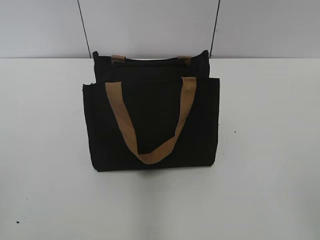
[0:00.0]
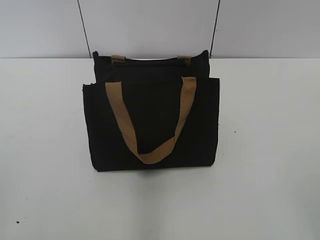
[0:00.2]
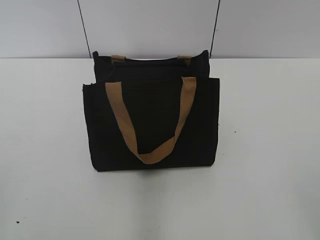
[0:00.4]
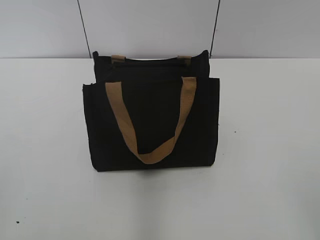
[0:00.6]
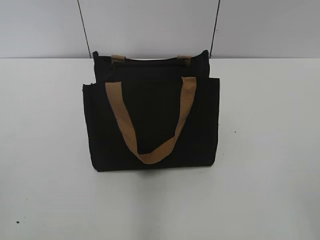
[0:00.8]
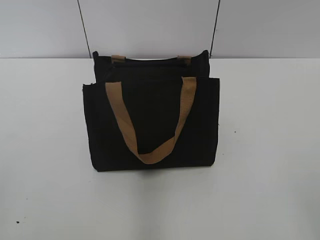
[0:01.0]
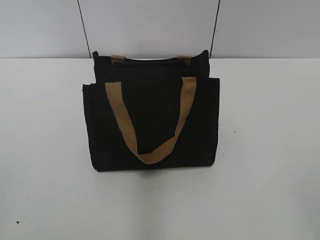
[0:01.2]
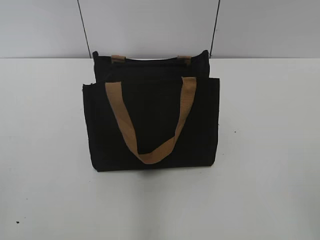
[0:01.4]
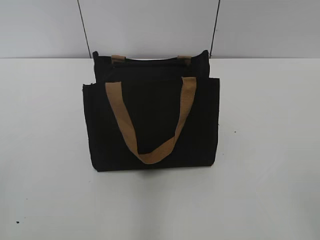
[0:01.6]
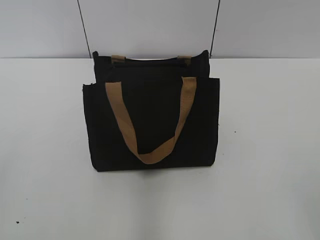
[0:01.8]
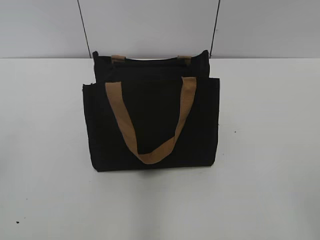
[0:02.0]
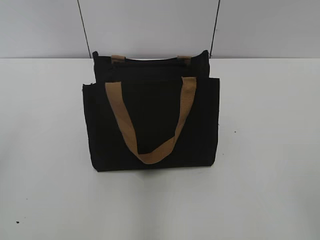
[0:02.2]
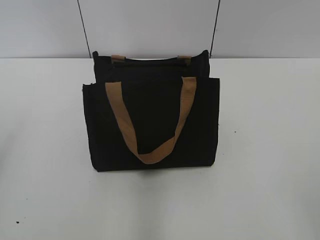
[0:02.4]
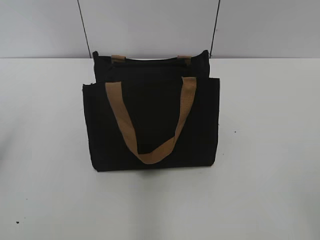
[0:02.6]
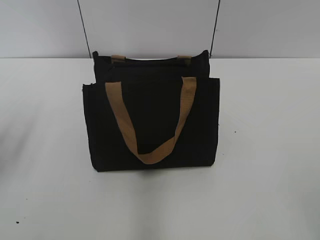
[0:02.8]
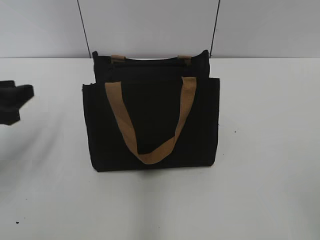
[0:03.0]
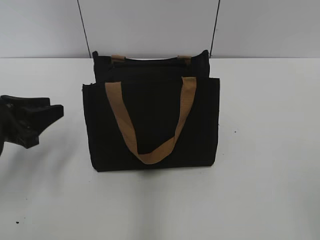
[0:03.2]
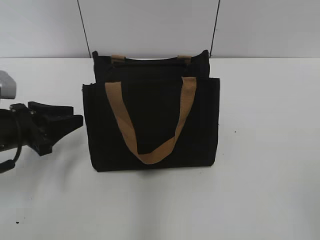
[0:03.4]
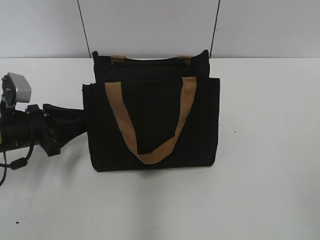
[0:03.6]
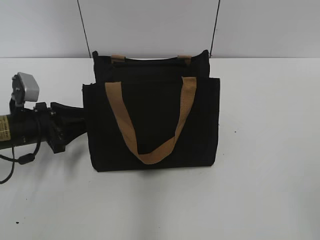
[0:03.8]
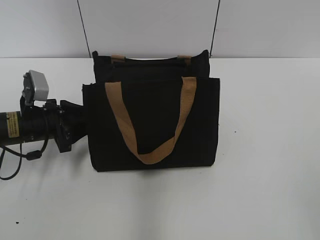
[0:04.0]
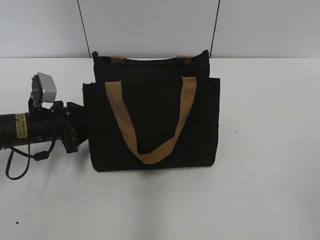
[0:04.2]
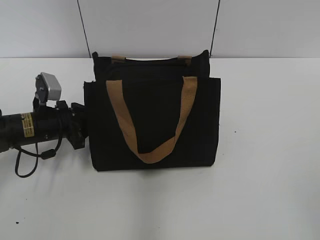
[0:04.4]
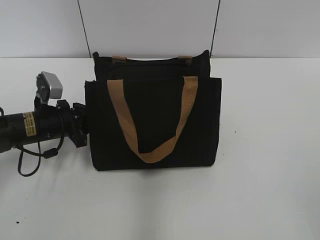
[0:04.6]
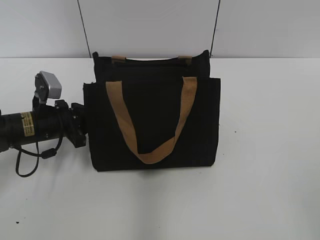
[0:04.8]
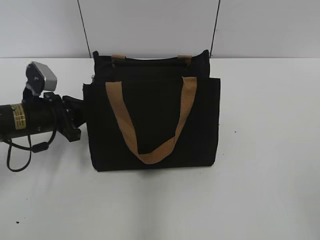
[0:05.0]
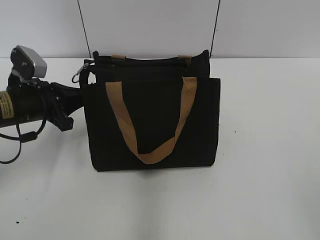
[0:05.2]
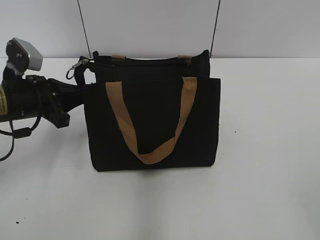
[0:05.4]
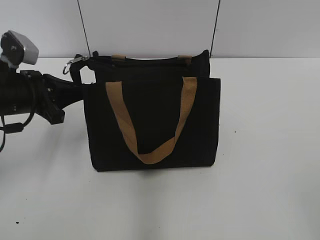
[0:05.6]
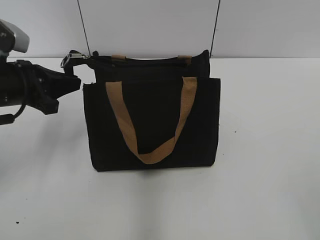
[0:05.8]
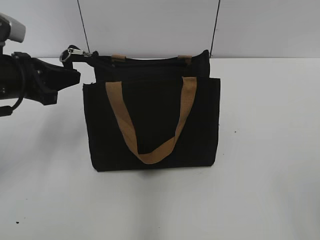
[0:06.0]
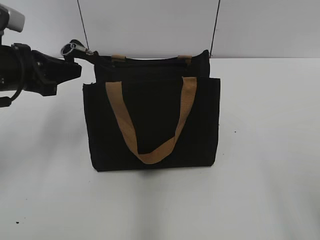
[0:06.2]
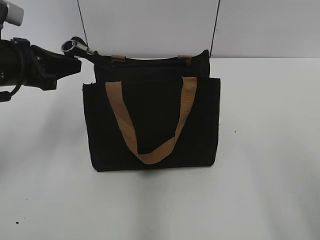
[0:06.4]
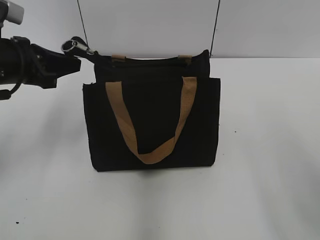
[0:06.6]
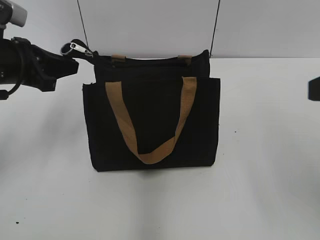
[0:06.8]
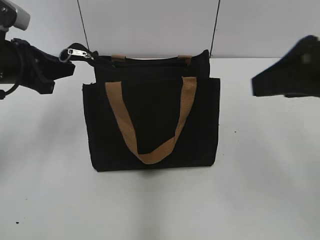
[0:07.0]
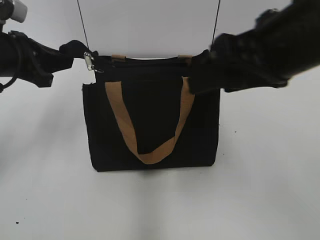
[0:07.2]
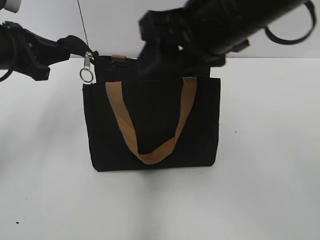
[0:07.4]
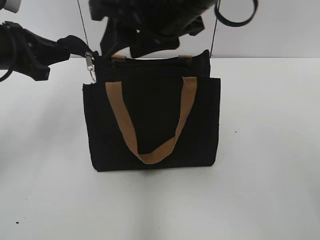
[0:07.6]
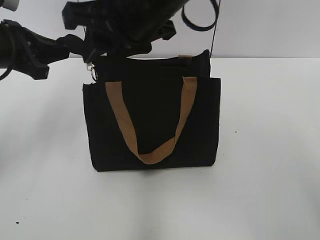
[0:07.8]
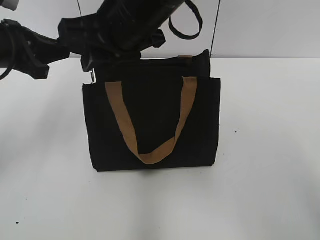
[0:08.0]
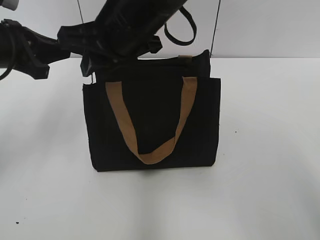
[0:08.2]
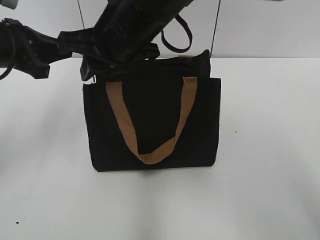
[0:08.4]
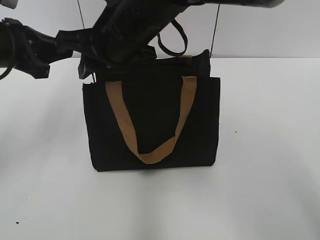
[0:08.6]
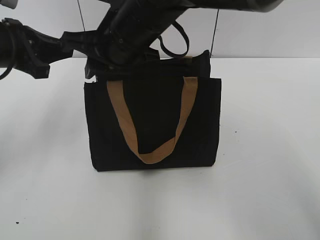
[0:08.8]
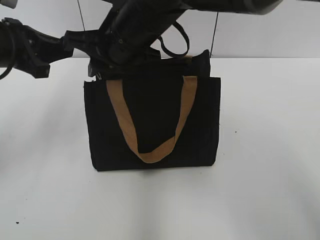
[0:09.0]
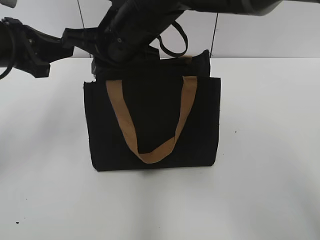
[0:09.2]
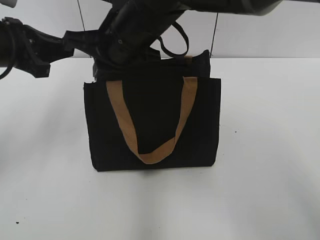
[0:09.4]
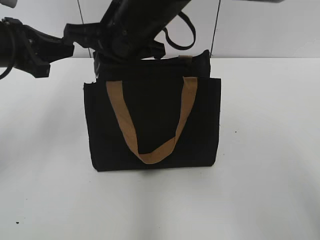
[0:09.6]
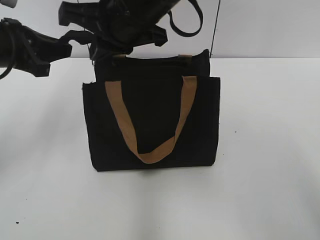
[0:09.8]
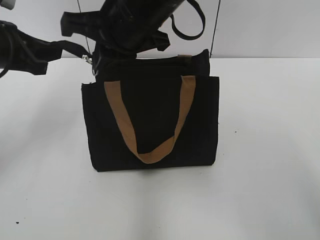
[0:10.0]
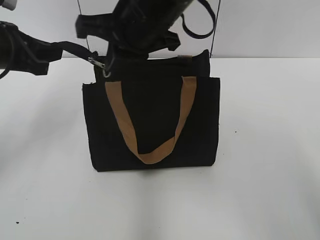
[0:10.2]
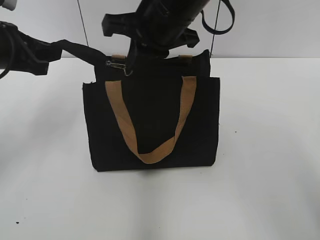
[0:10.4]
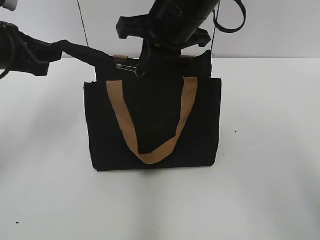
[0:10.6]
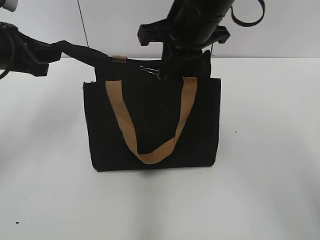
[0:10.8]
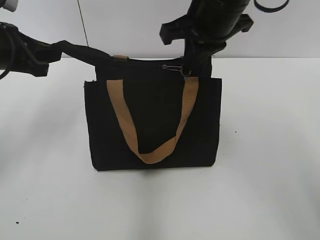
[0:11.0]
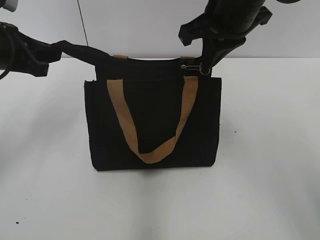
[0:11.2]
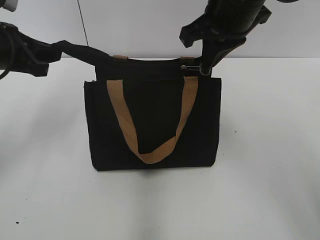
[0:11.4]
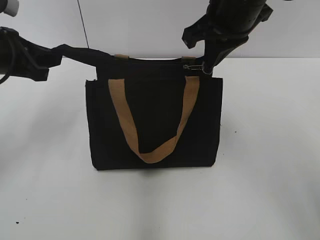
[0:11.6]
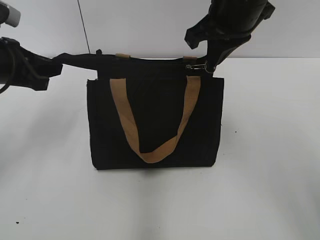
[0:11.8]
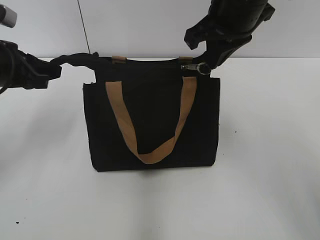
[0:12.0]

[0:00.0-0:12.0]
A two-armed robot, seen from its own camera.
Step, 0:00.0 to 0:12.0: Zip up the bag with your right hand.
0:01.6 to 0:03.0: The left gripper travels forward by roughly 25 cm.
0:03.0 to 0:04.4: The left gripper shifts roughly 15 cm downward, forward and to the right.
0:04.4 to 0:06.0: The left gripper moves upward, about 15 cm.
0:06.0 to 0:07.6: The right gripper is displaced forward and to the left by roughly 35 cm.
0:07.6 to 0:09.0: The right gripper travels downward, to the left and forward by approximately 10 cm.
0:09.0 to 0:10.4: The right gripper shifts roughly 5 cm to the right, and closes up.
0:10.4 to 0:12.0: The right gripper is displaced to the right by some 10 cm.

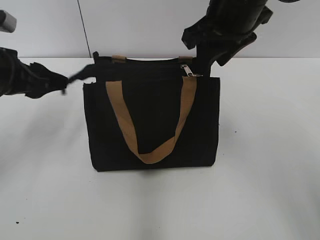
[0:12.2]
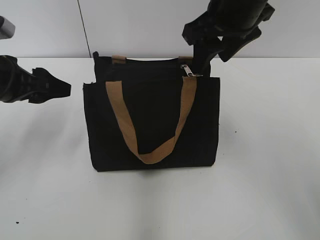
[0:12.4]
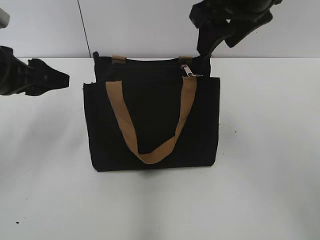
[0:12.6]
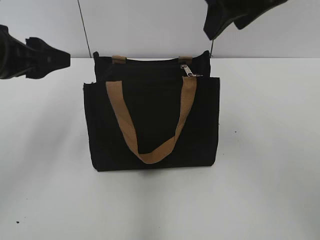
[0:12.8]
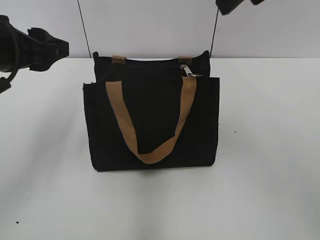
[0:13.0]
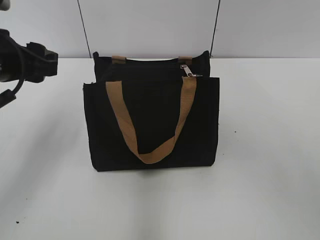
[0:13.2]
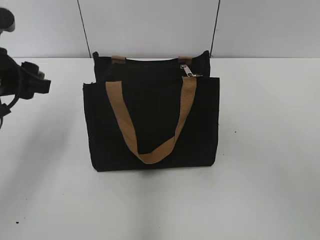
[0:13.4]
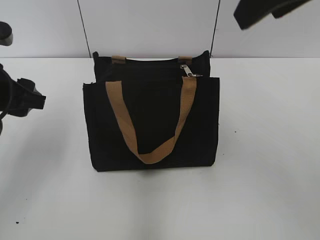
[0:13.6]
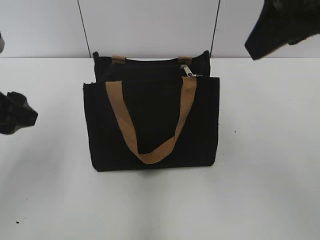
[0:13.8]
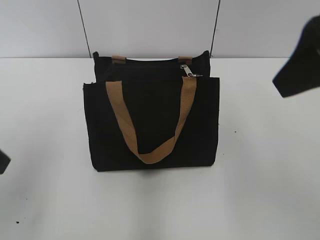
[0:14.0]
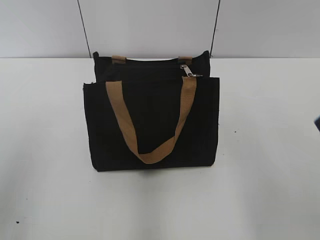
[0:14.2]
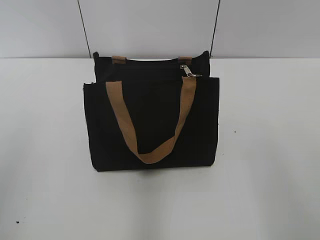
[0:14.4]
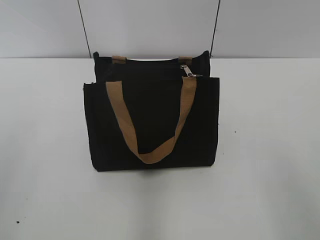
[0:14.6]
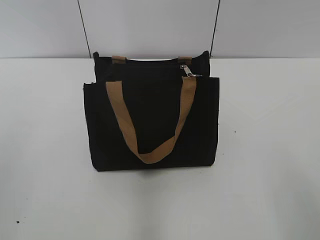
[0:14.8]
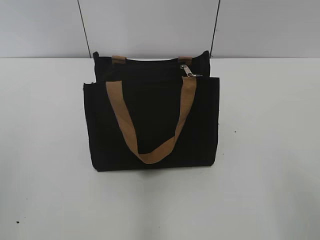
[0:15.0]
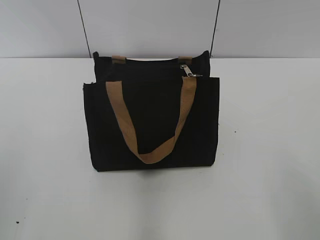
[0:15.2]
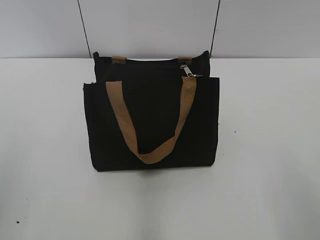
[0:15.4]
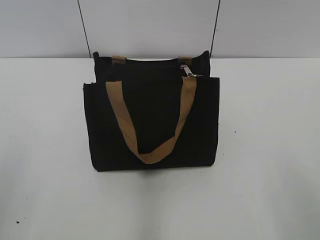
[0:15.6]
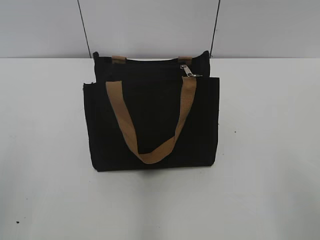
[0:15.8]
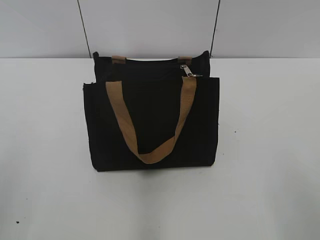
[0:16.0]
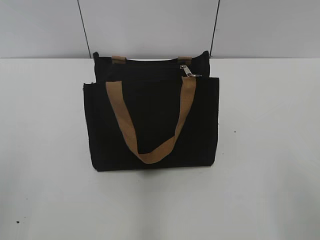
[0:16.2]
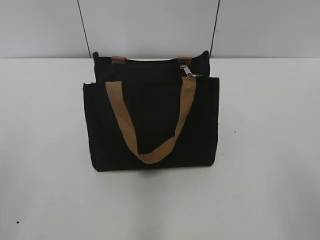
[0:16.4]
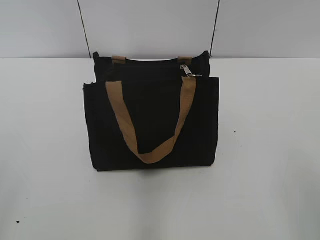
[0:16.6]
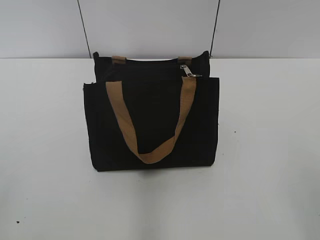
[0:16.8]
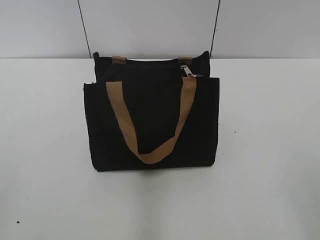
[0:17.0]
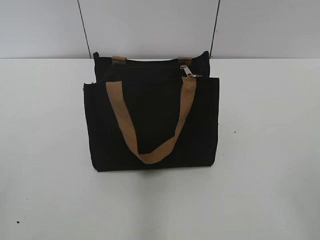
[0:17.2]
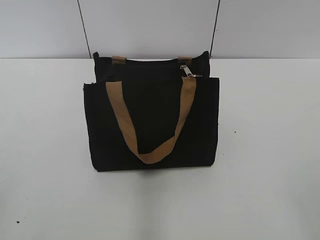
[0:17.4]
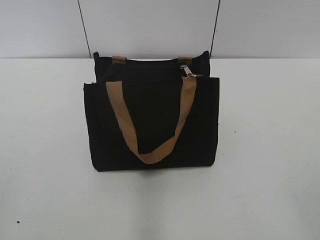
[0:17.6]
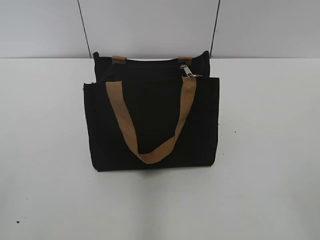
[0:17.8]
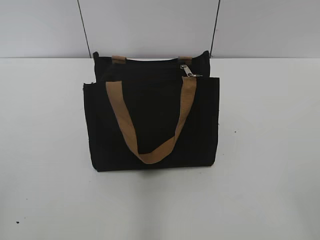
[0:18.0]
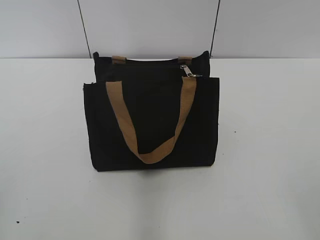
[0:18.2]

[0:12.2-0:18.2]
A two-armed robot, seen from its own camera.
0:12.2 to 0:13.8: The right gripper goes about 15 cm backward, upward and to the right, and opens up; the left gripper is displaced backward by some 10 cm.
0:13.8 to 0:15.2: The right gripper is displaced backward, downward and to the right by roughly 25 cm; the left gripper moves backward, some 20 cm.
